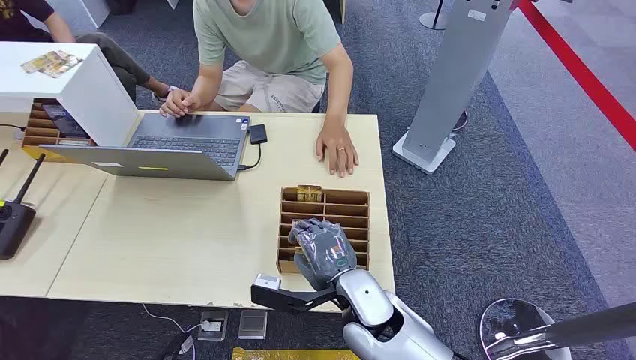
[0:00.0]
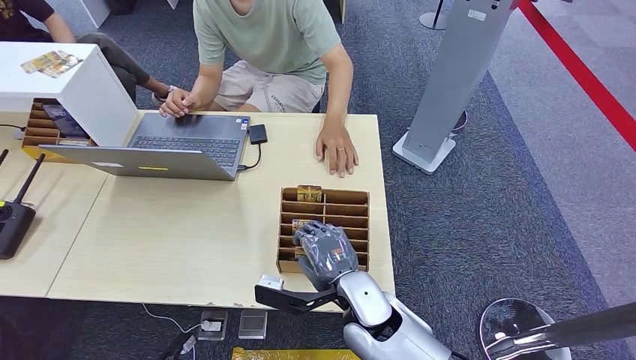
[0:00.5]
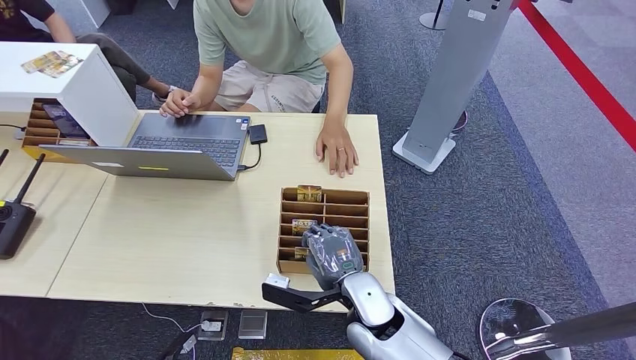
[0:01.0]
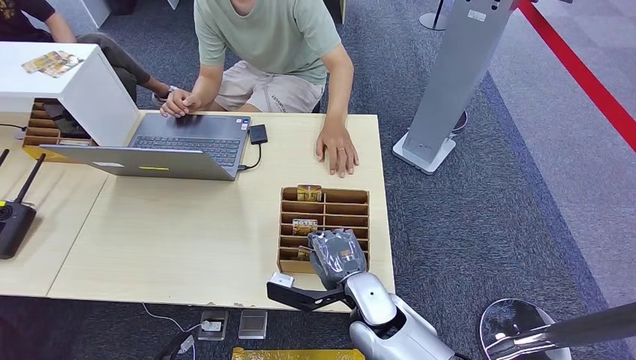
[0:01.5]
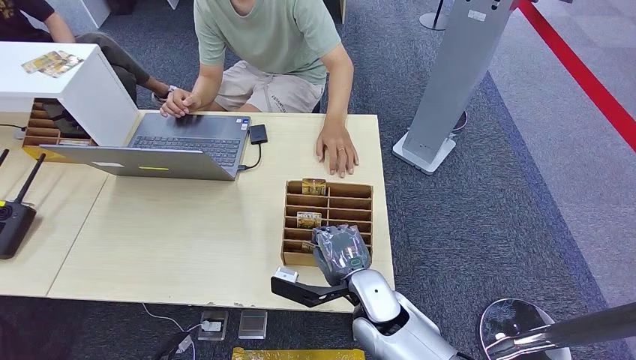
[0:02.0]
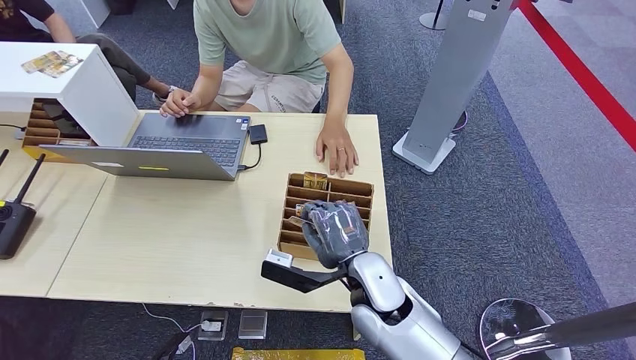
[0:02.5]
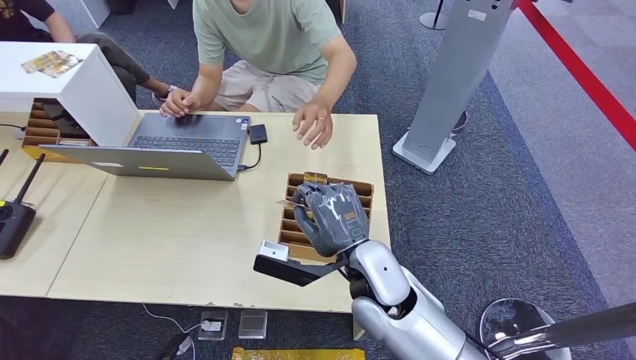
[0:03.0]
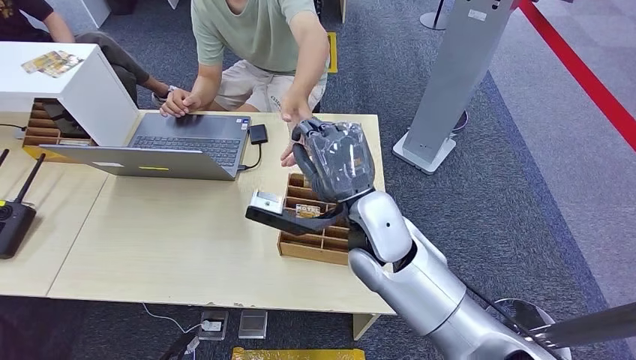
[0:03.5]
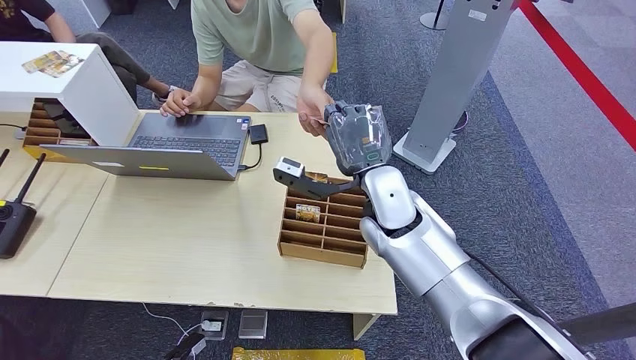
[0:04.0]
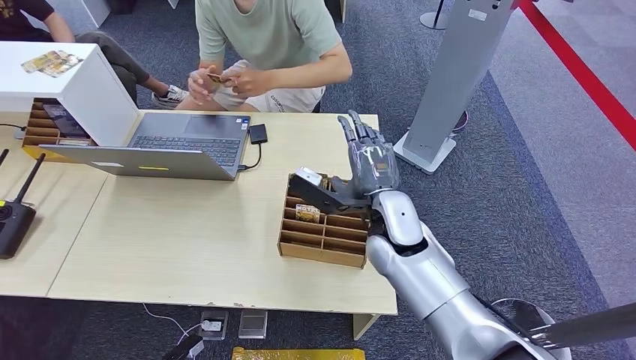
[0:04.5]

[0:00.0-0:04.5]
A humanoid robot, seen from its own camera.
Task of the whole recording: Pick up the card and hand it over to the target person.
Step, 0:00.0 to 0:02.5: Pick up the key card from the card box.
Step, 0:03.5 to 0:04.5: Hand the key card to the target.
0:02.0 to 0:04.5: The right hand travels upward and to the right by roughly 10 cm.
